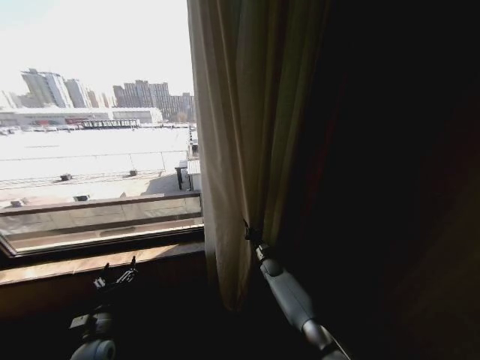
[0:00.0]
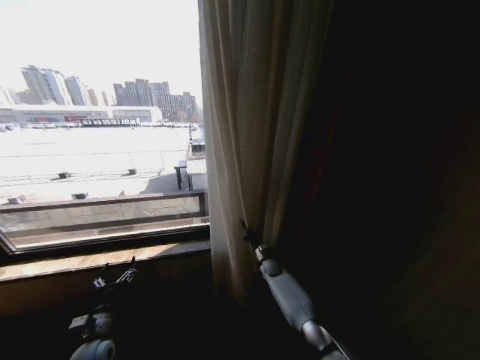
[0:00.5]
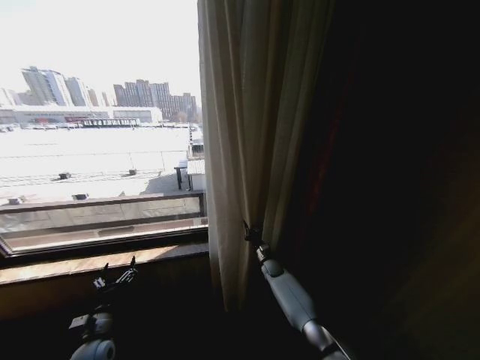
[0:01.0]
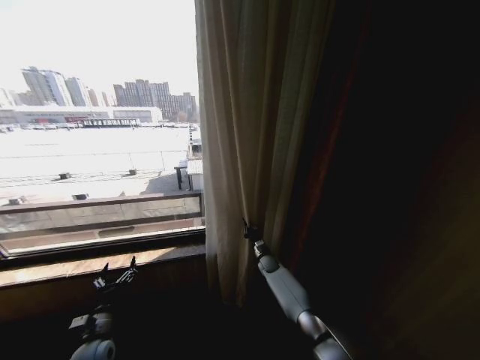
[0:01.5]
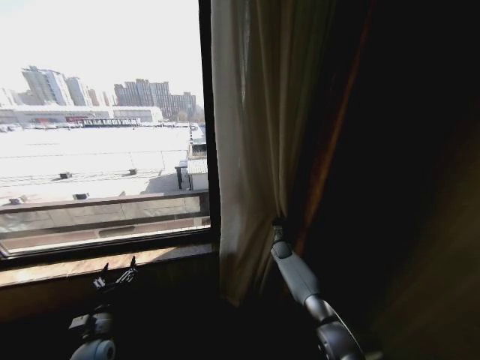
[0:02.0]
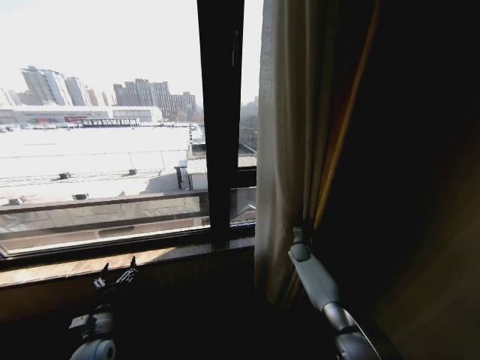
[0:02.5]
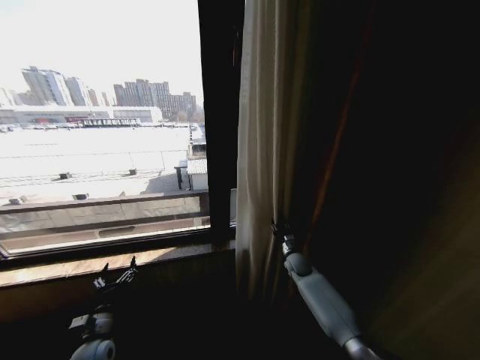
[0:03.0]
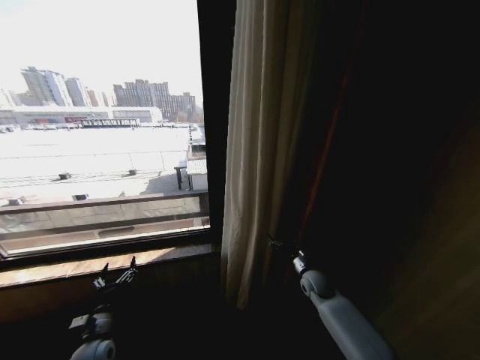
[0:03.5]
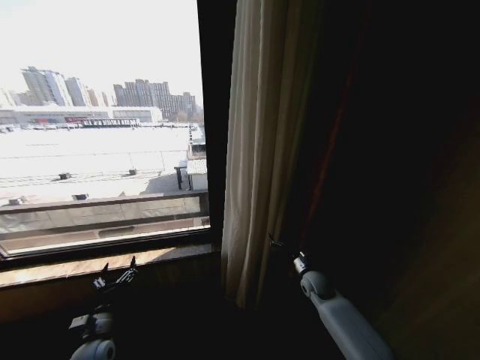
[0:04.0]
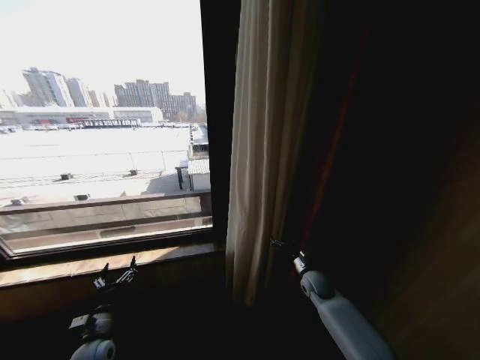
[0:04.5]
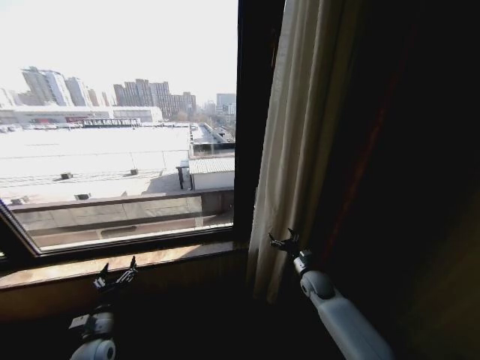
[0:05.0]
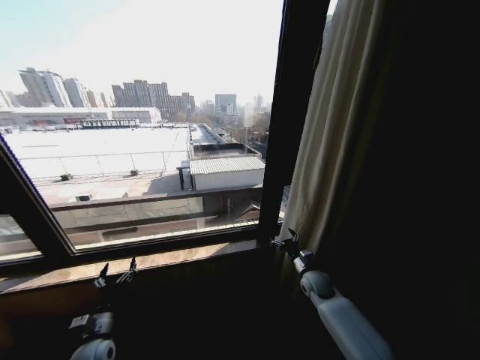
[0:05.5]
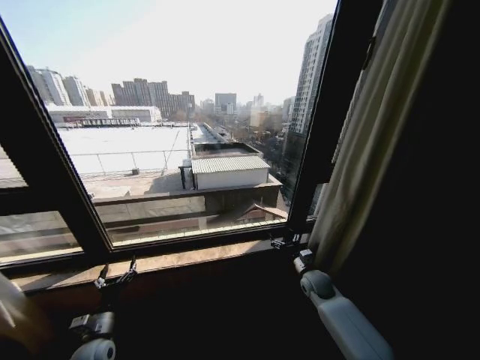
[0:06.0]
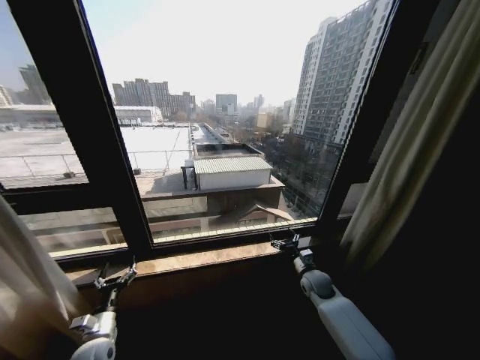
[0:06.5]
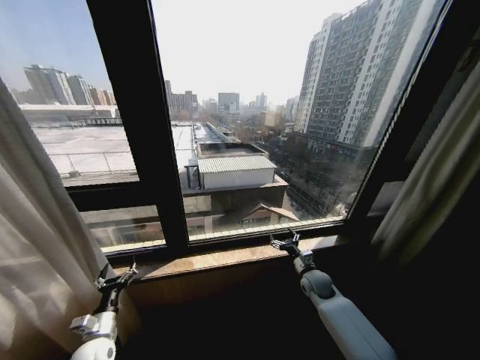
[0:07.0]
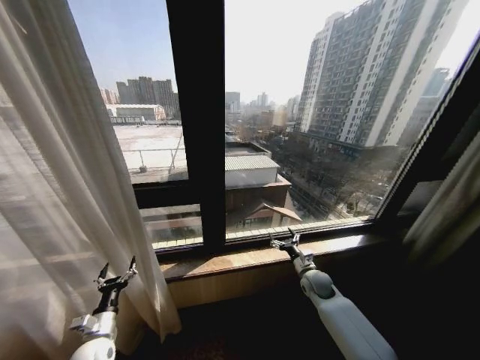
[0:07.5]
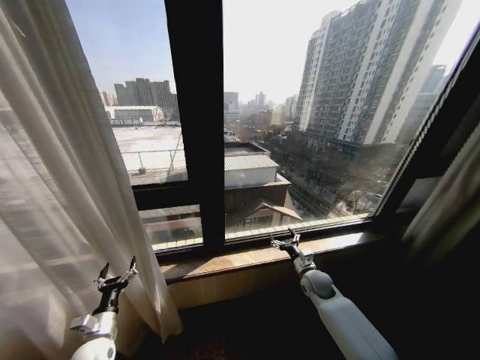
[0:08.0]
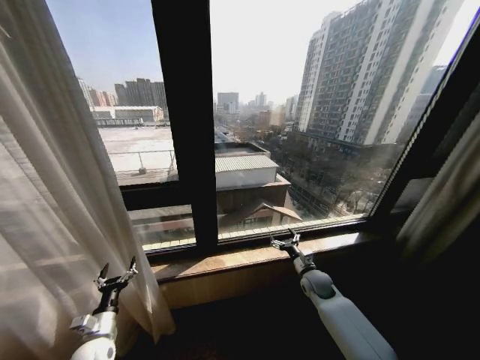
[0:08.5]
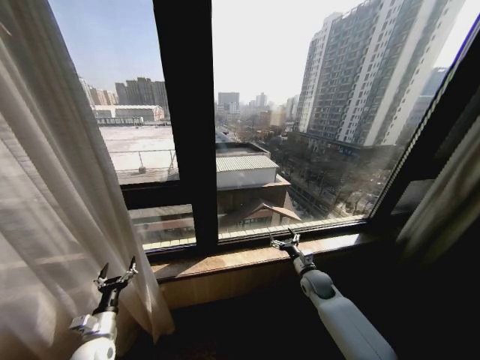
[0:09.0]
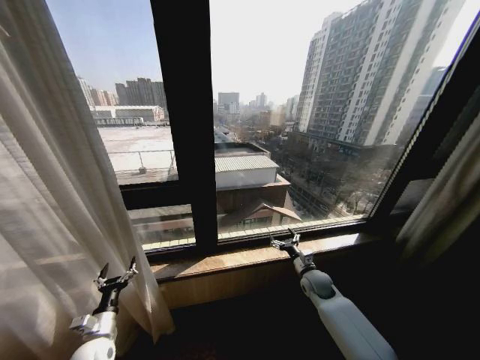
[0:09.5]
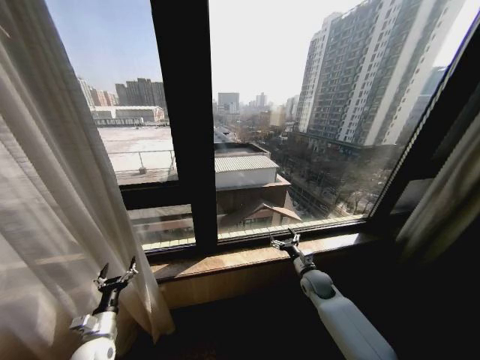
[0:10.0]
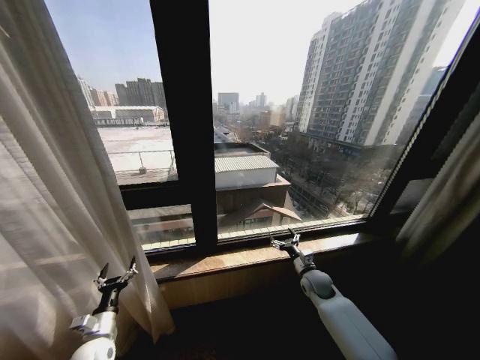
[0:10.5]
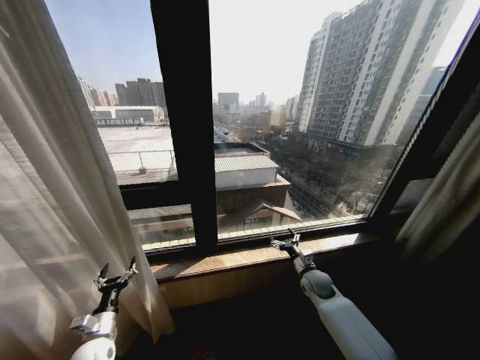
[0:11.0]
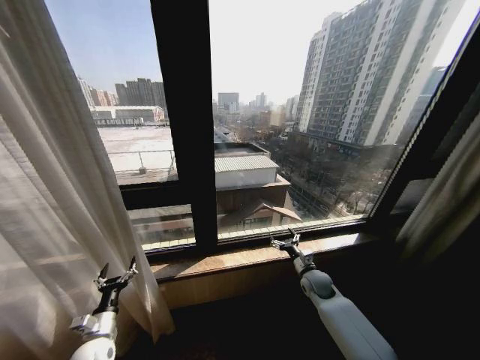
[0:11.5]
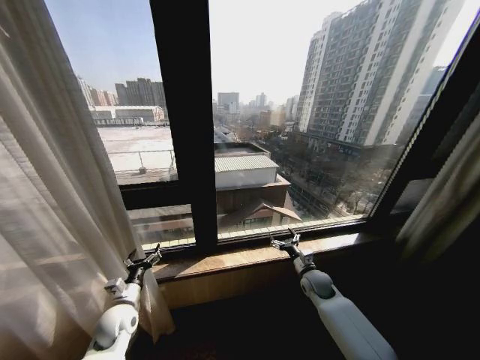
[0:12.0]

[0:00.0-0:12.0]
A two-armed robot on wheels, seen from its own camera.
Task of the whole recording: Open the curtains by pulling them apart, changing their state from closed to fully open.
0:00.0 to 0:02.0: The right gripper travels forward by approximately 5 cm.
0:02.0 to 0:04.0: The right gripper moves backward and to the right, roughly 20 cm, and opens.
0:10.0 to 0:12.0: The left gripper goes approximately 5 cm forward.

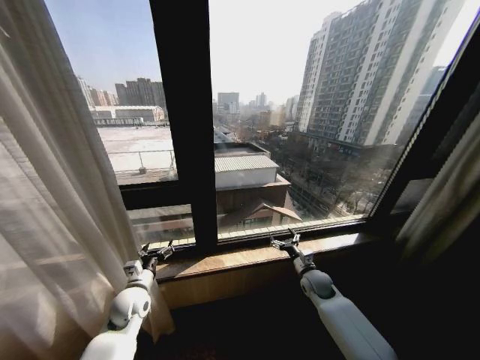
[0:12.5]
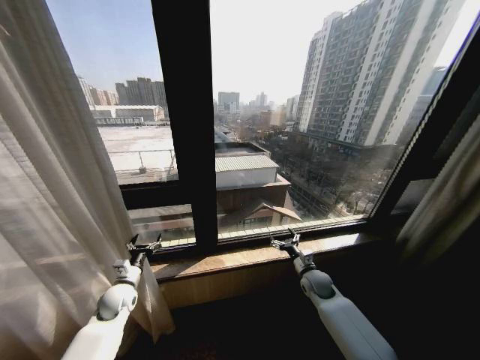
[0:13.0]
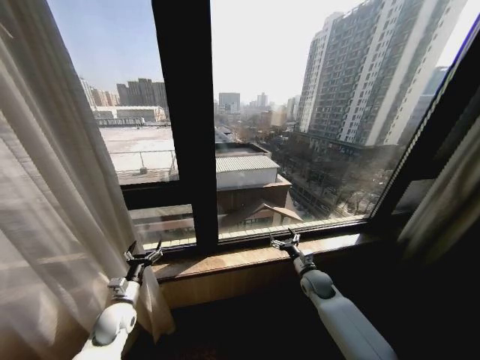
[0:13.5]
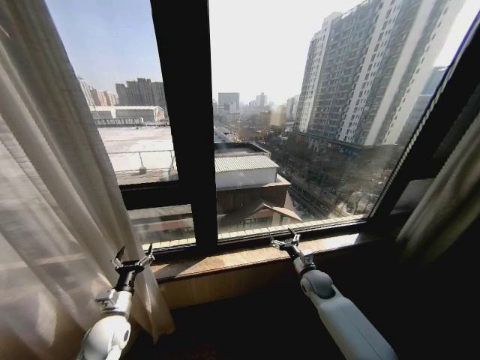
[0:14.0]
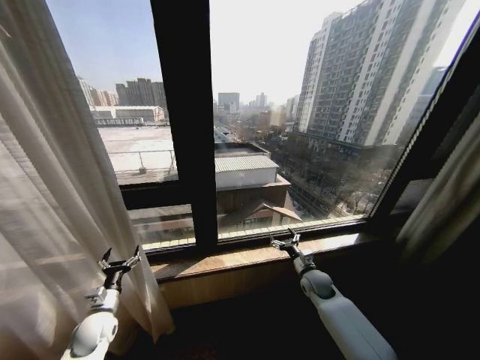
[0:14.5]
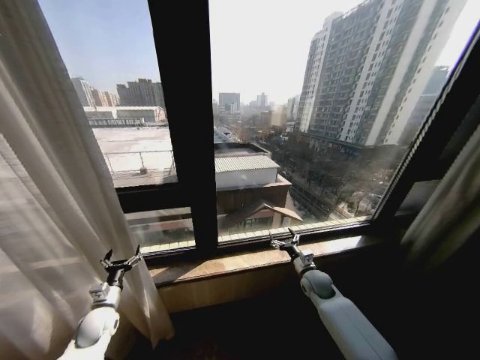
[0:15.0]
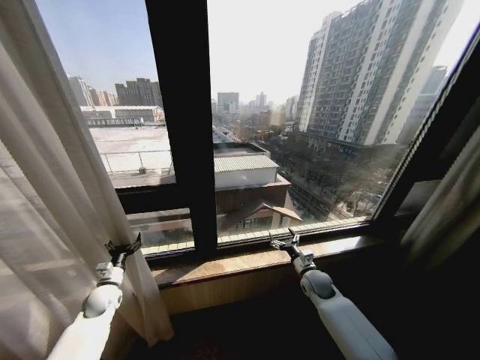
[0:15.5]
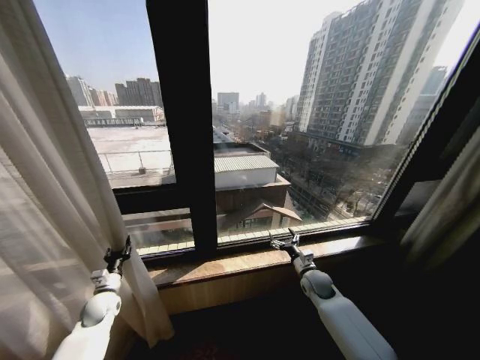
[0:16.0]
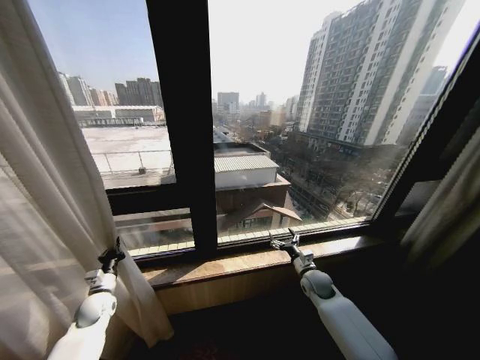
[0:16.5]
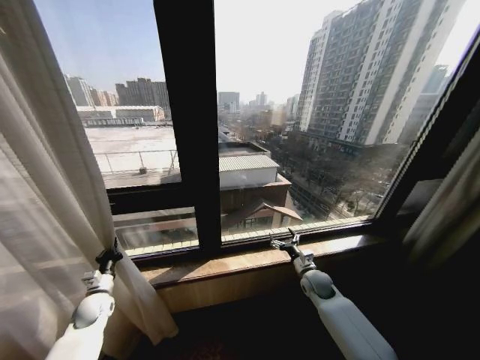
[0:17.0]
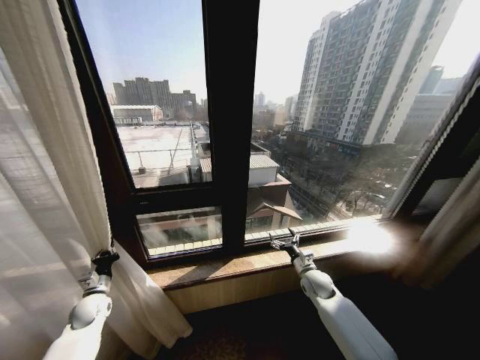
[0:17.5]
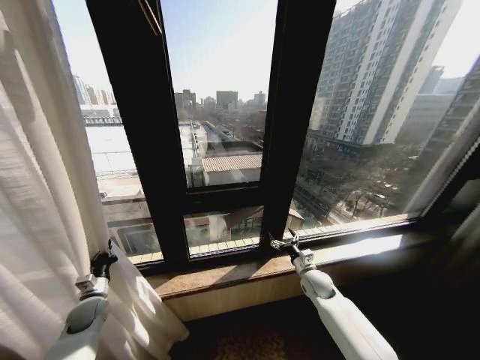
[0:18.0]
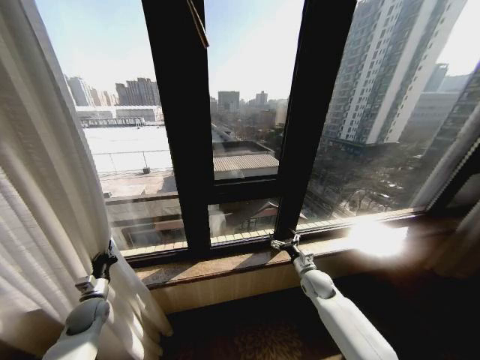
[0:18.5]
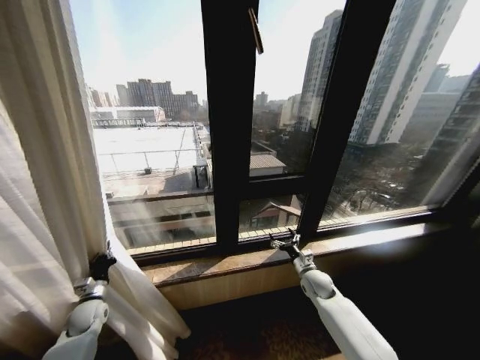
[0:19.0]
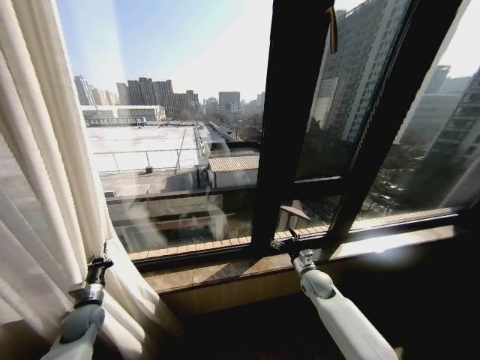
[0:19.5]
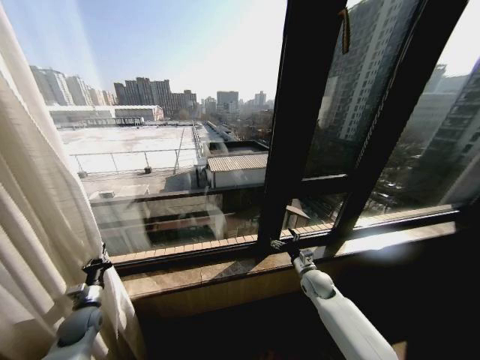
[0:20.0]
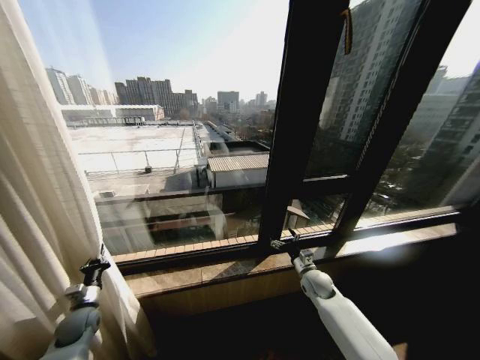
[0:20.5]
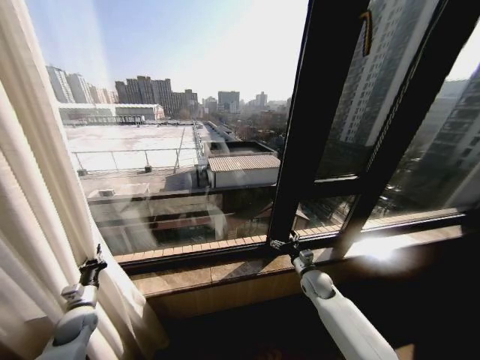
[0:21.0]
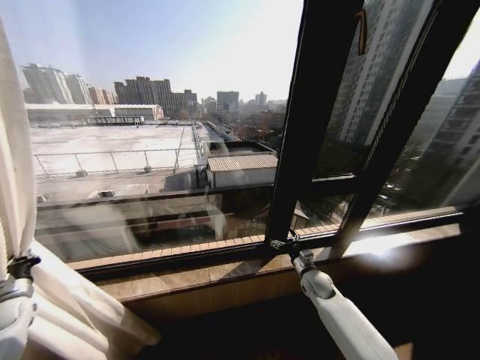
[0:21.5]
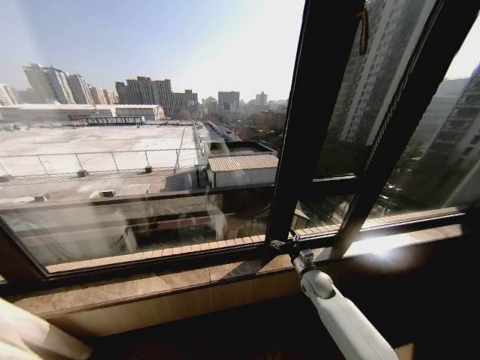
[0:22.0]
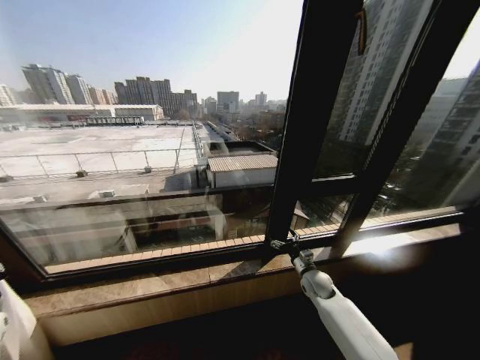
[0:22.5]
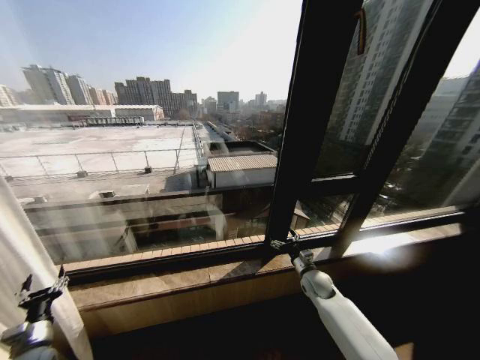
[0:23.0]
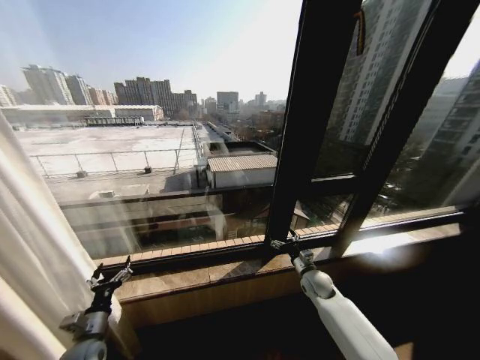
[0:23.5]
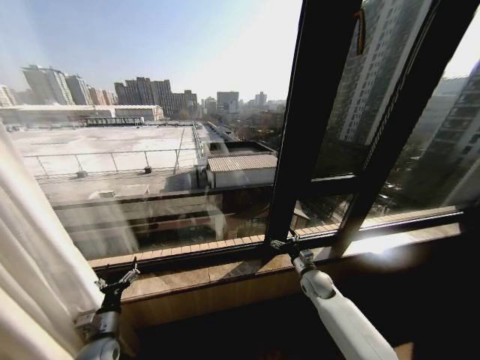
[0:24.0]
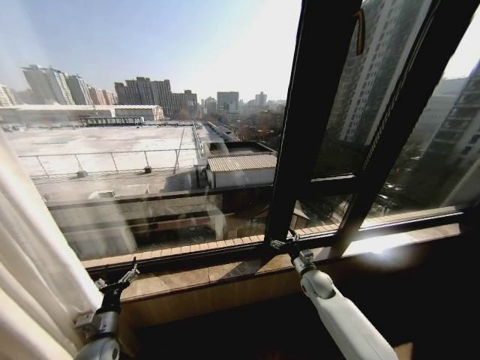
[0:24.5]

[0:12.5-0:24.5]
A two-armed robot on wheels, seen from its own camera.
Task of the whole recording: Open the curtains by pulling them apart, changing their state from closed to fully open.
0:12.5 to 0:14.5: The left gripper goes approximately 10 cm to the left and downward.
0:14.5 to 0:16.5: The left gripper goes about 5 cm forward, and closes its fingers.
0:20.5 to 0:22.5: The left gripper goes approximately 25 cm to the left.
0:22.5 to 0:24.5: The left gripper is displaced to the right by some 30 cm, and opens up.

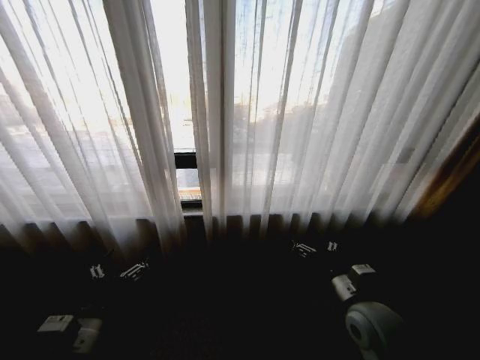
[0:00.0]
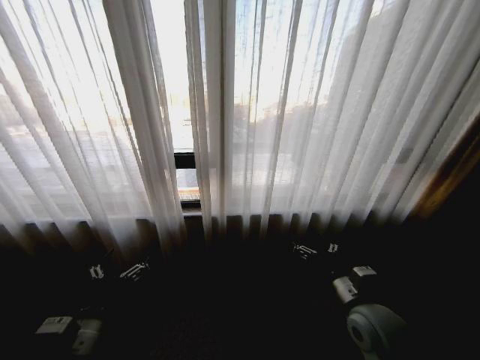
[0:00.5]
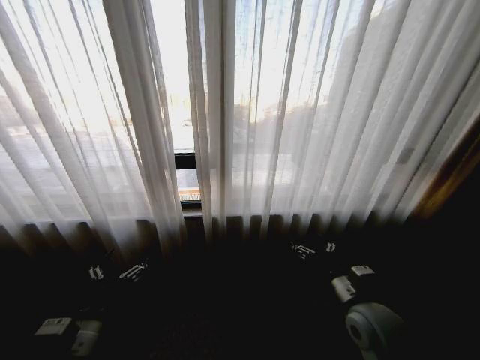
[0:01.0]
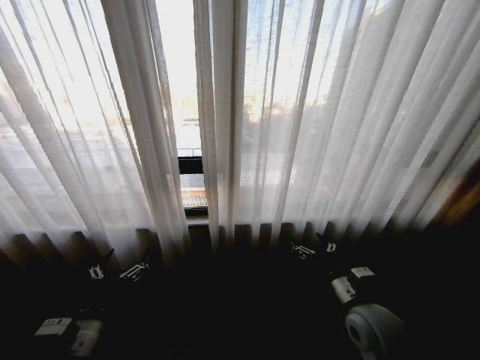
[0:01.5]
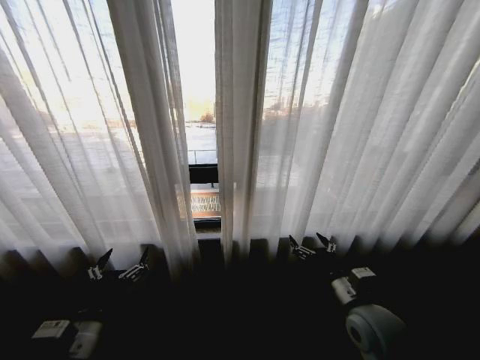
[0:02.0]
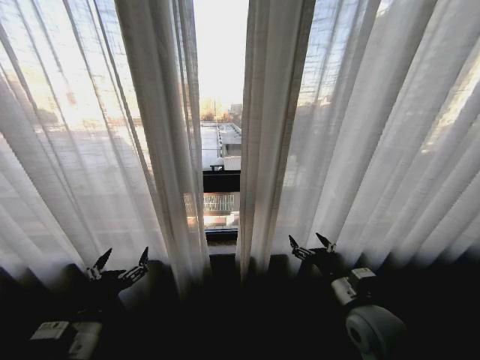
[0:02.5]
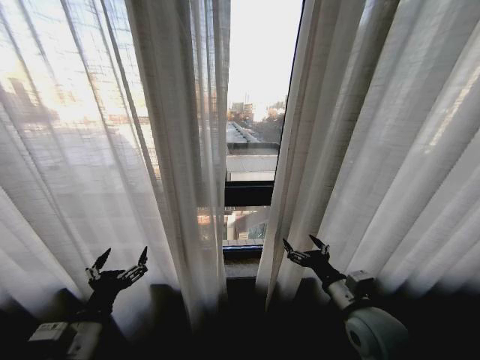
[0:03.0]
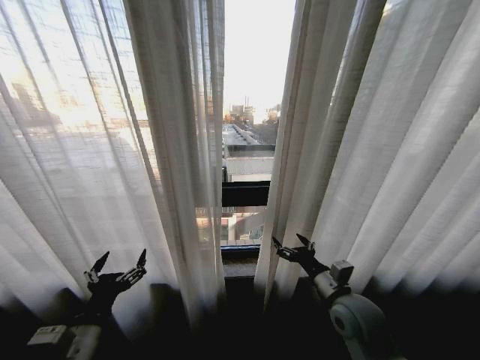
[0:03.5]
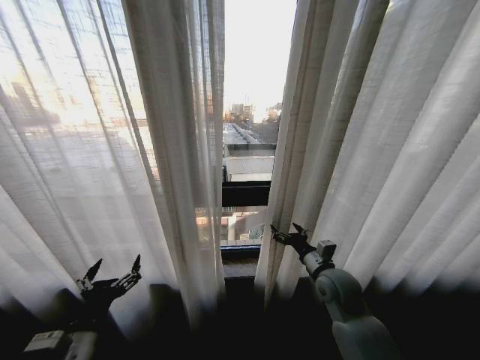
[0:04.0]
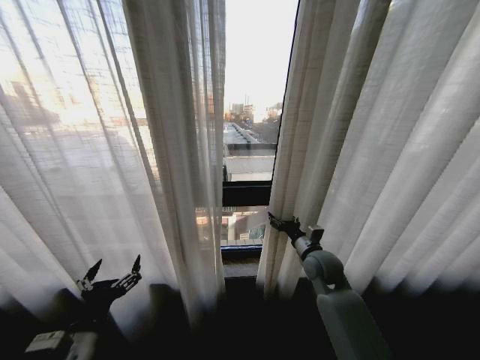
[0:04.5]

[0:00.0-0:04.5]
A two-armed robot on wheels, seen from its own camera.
Task of the whole recording: Open the curtains by pulling them apart, changing their state from closed to fully open.
0:02.0 to 0:04.5: The right gripper is displaced forward by about 15 cm.
